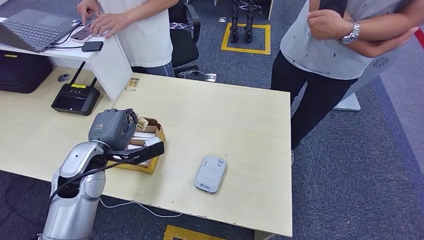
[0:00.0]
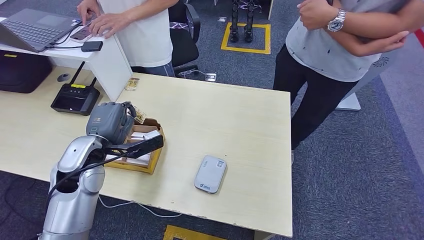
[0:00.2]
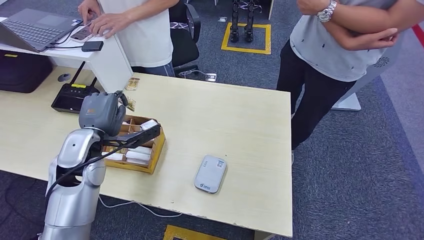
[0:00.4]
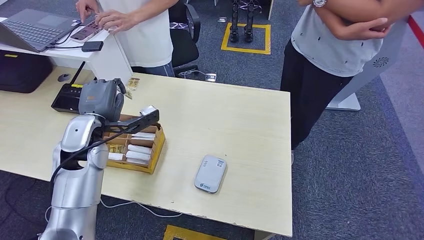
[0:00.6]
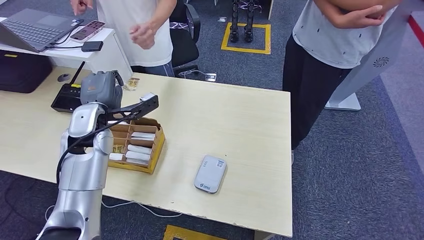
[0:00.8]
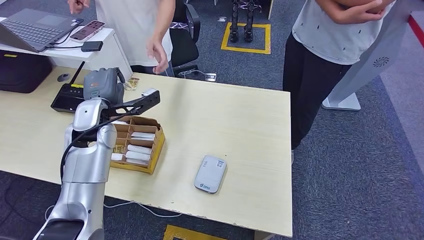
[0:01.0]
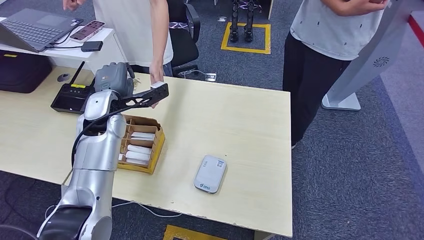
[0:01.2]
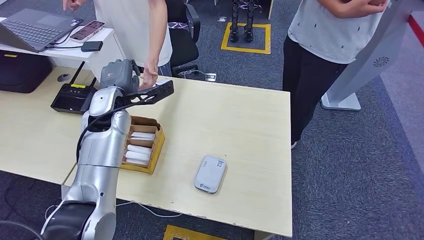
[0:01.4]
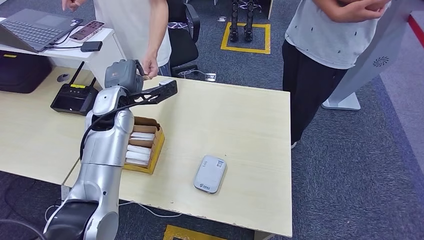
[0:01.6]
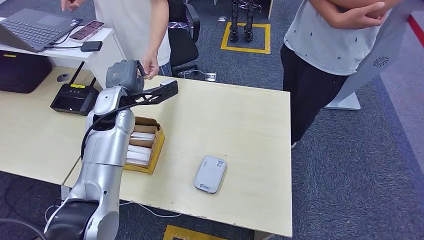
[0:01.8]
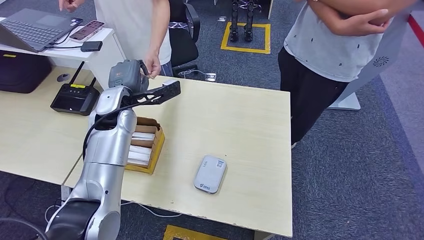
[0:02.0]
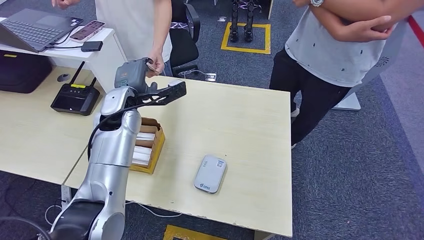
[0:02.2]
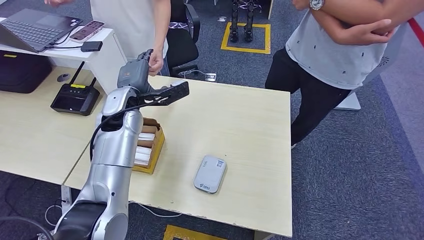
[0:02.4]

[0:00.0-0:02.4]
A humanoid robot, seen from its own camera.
Step, 0.0 to 2.4 s: Hand the room key to the person.
1.2 to 2.4 s: There are only small adjustments of the hands.

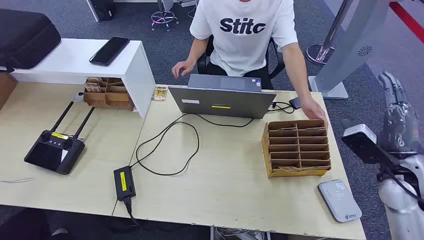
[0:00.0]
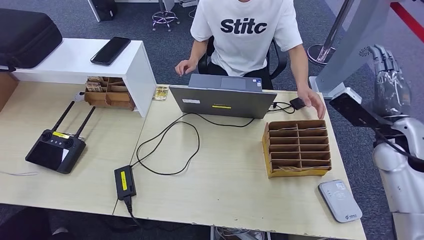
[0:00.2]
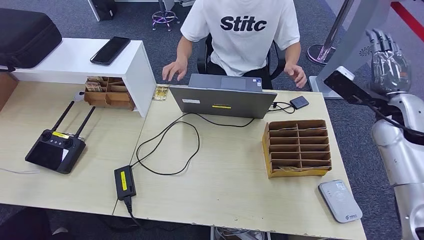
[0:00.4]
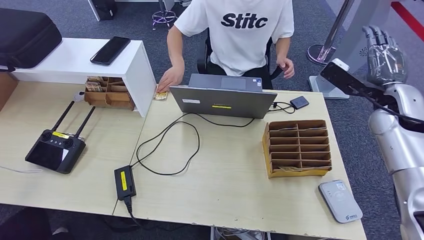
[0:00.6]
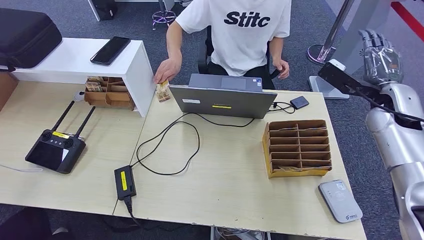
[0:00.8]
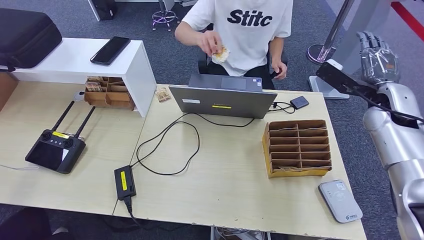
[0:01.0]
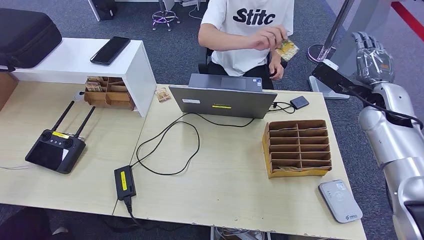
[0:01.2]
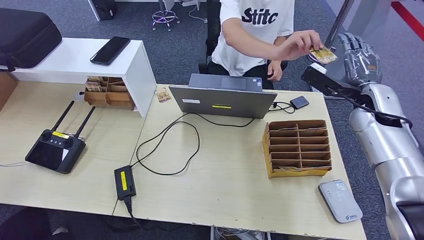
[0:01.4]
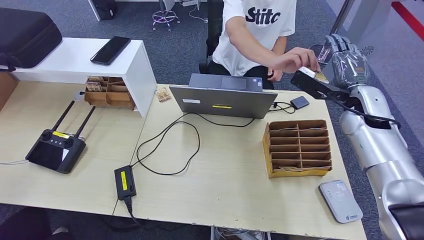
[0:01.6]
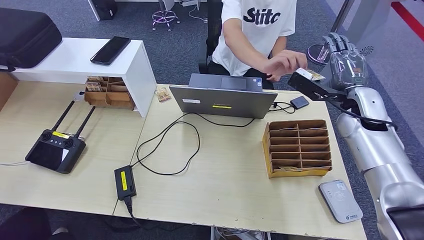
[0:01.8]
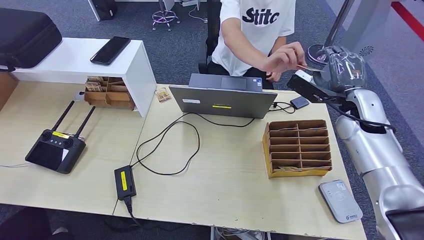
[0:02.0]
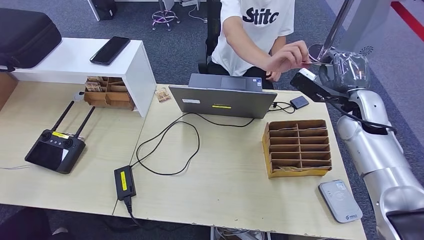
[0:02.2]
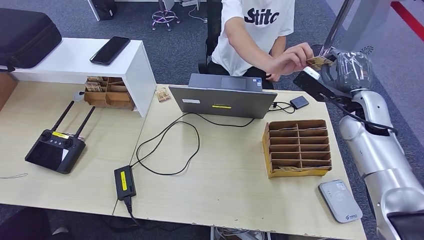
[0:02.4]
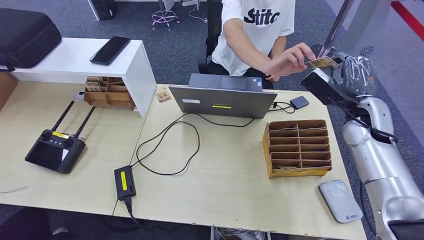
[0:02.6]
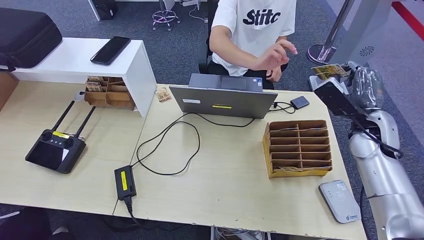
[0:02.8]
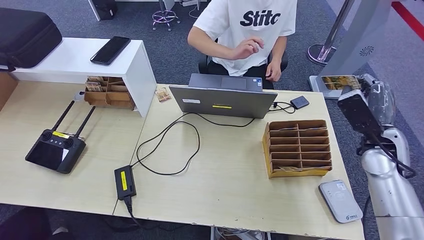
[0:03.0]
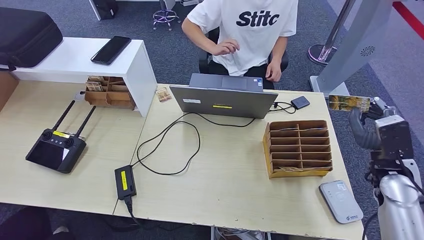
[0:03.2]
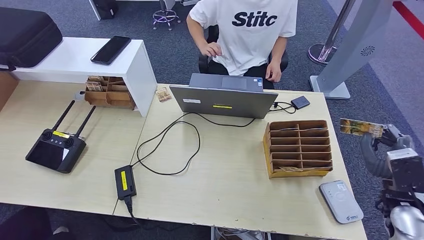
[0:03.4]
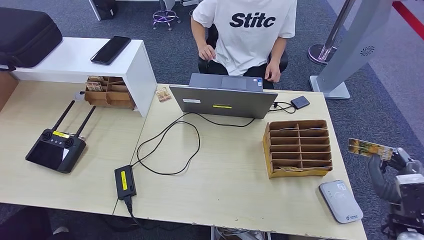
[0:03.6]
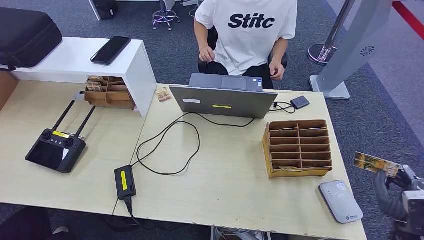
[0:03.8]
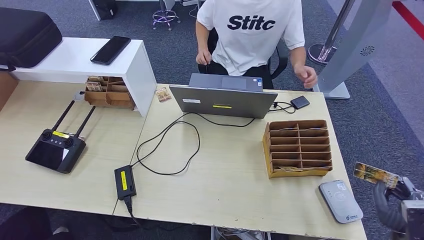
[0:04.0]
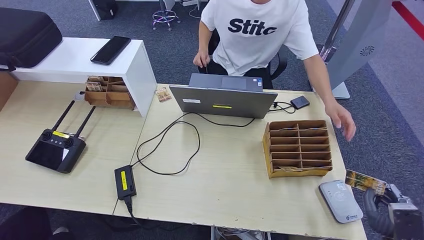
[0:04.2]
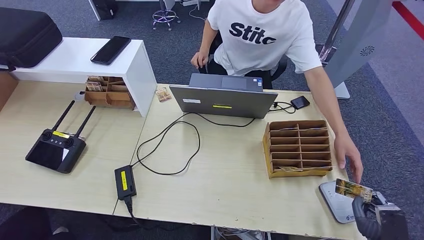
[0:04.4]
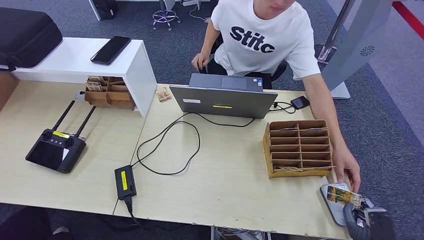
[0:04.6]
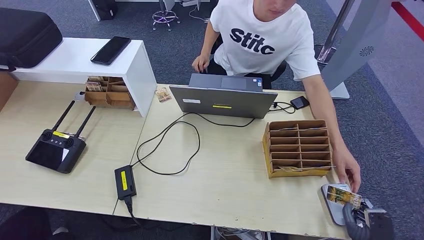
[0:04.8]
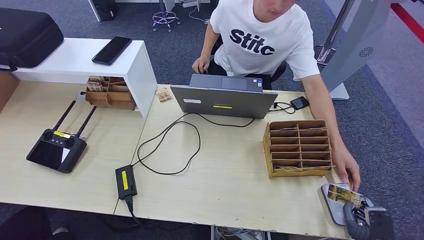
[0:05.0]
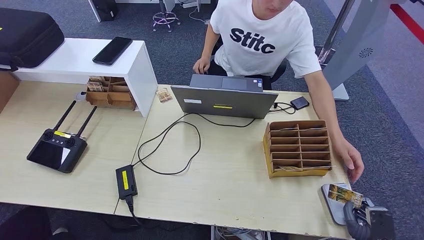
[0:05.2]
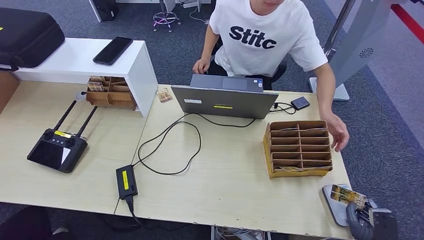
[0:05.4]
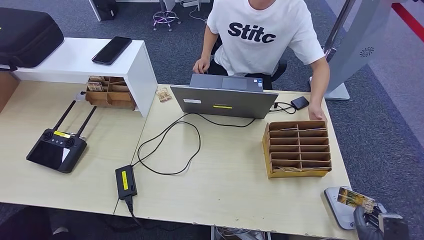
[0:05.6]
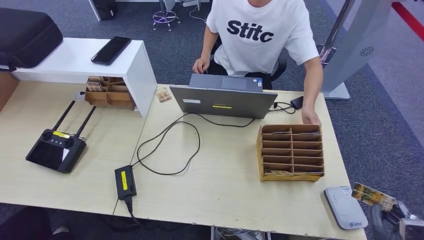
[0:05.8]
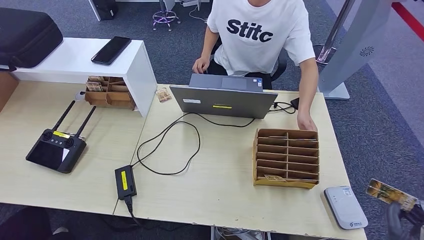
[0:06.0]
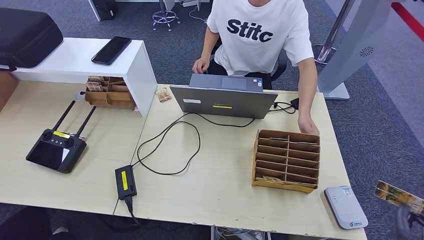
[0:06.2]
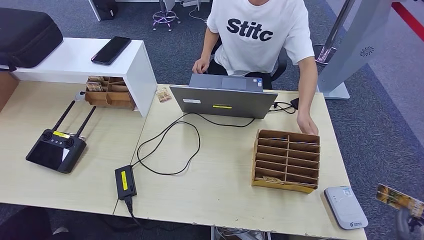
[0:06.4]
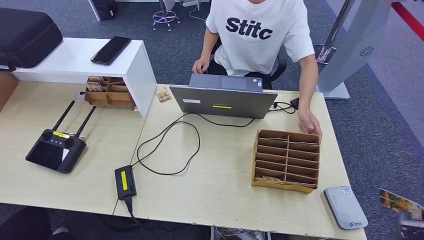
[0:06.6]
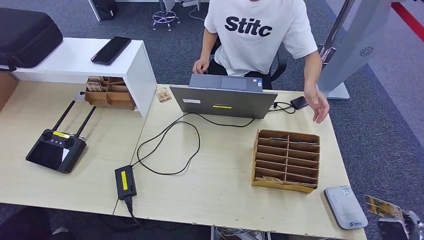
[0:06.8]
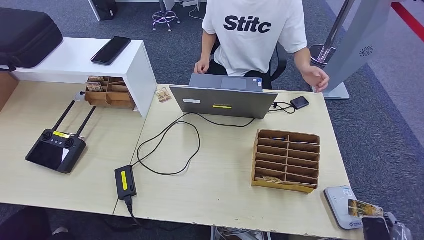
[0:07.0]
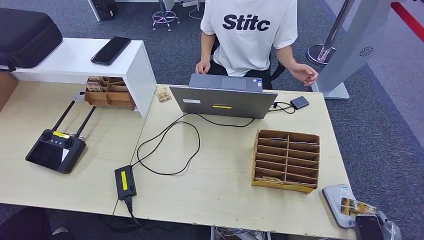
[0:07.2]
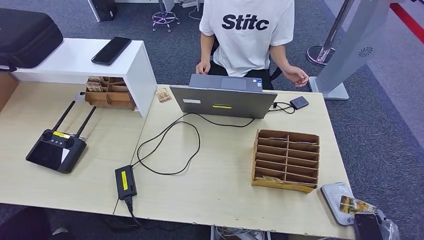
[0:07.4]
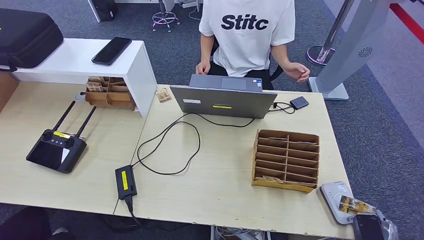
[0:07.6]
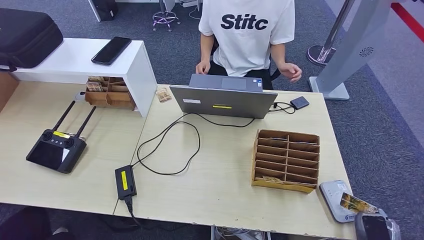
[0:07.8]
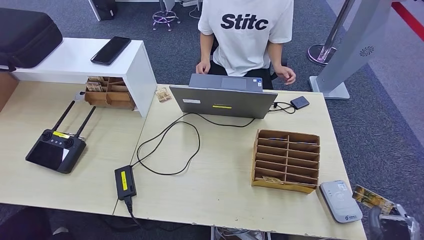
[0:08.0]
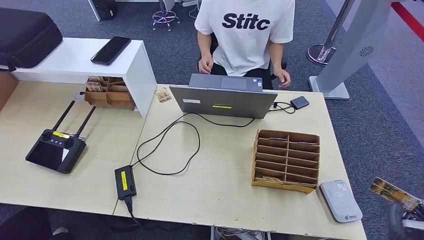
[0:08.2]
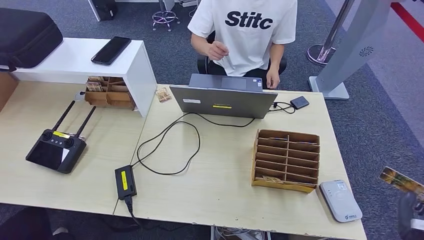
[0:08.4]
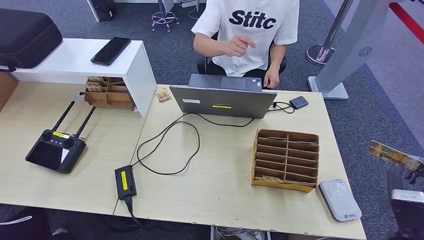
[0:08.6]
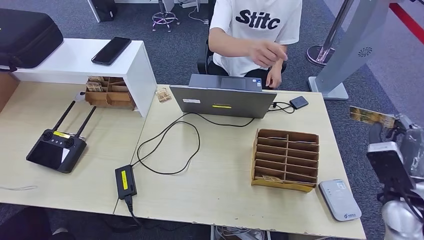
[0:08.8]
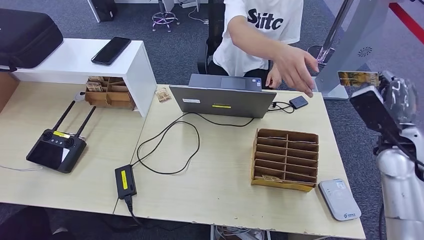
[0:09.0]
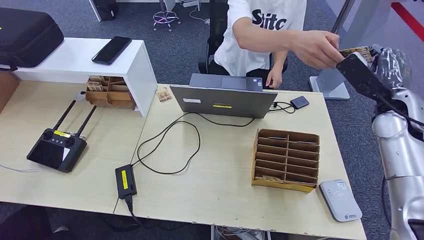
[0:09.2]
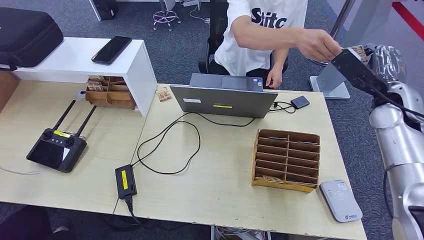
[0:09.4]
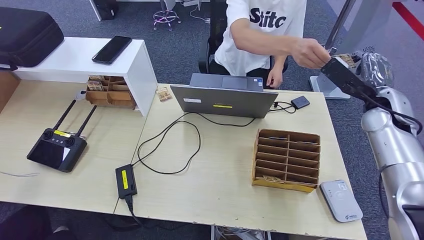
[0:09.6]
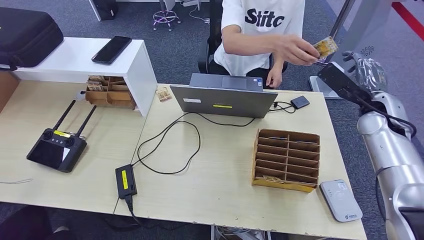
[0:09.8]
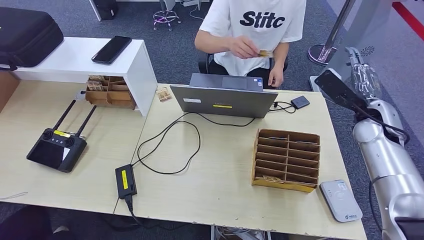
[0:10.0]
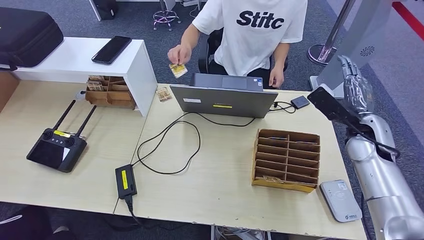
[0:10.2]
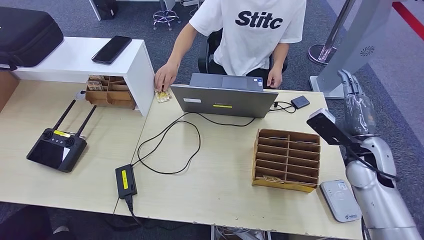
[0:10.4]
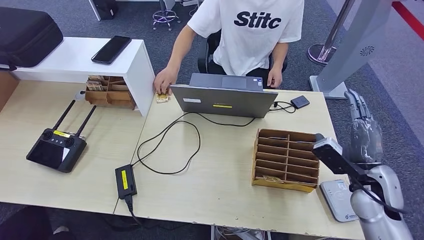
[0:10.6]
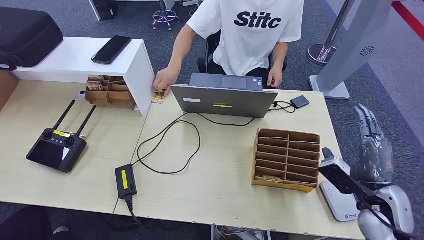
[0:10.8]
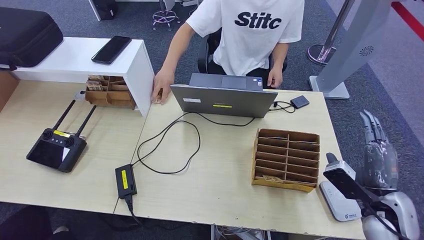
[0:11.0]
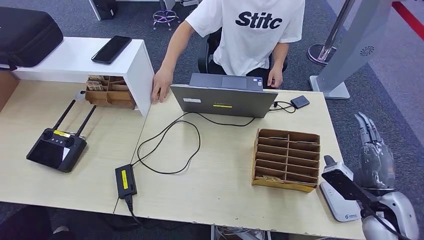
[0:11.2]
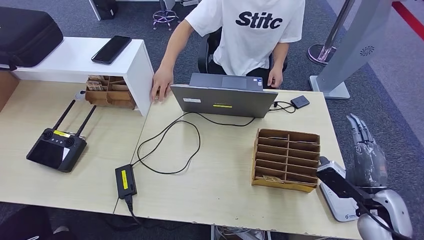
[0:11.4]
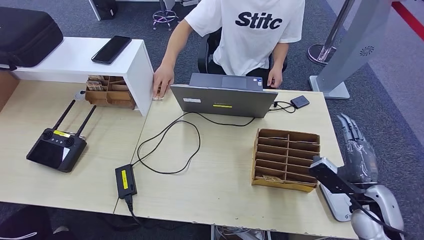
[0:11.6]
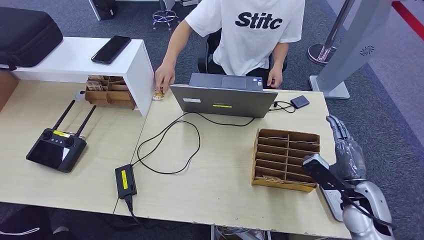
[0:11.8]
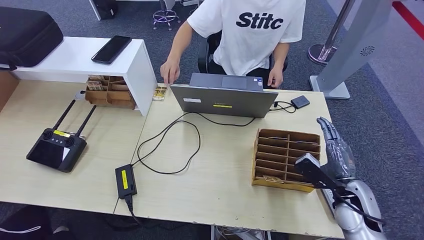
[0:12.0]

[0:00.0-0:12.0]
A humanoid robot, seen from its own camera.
Step, 0.0 to 3.2 s: Take the ID card from the person's hand.
Step, 3.4 to 8.4 s: Place the ID card on the card reader.
Step, 8.8 to 10.6 s: Hand the ID card to the person.
1.6 to 3.0 s: The right hand goes approximately 10 cm backward and downward.
3.0 to 4.4 s: The right hand shifts some 30 cm backward and downward.
4.4 to 6.0 s: There are only small adjustments of the hands.
6.0 to 7.6 s: The right hand heads downward, covering roughly 10 cm.
7.6 to 9.0 s: The right hand travels upward and forward by roughly 35 cm.
10.4 to 12.0 s: The right hand moves downward and backward, some 10 cm.

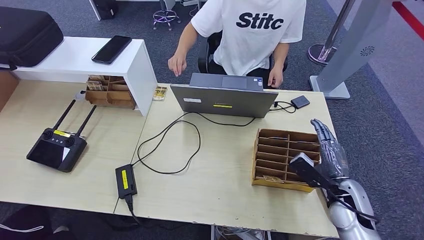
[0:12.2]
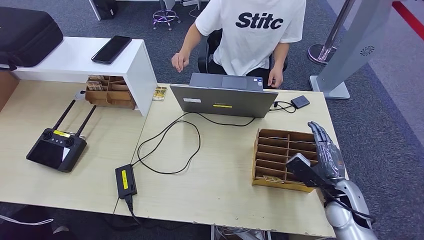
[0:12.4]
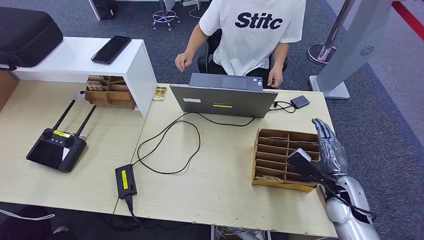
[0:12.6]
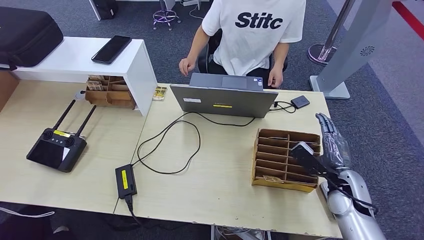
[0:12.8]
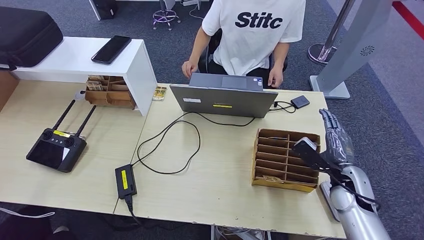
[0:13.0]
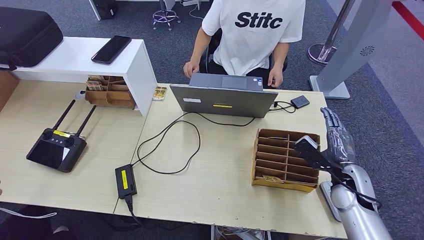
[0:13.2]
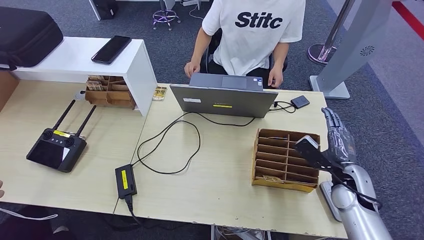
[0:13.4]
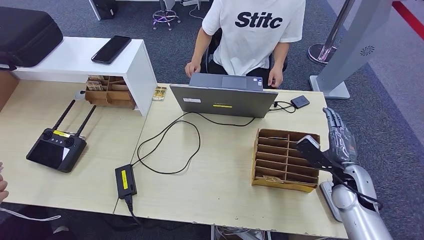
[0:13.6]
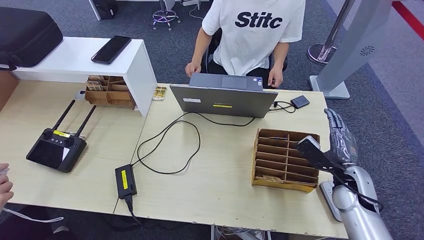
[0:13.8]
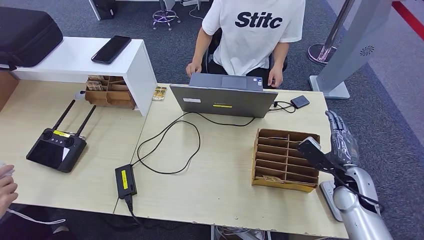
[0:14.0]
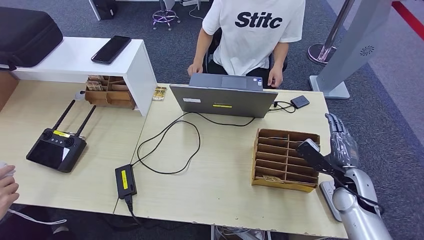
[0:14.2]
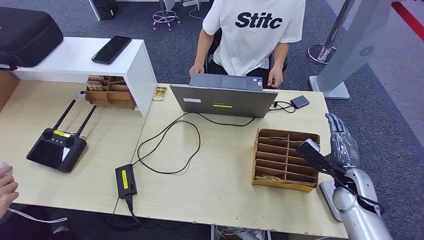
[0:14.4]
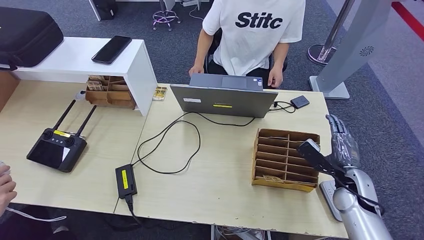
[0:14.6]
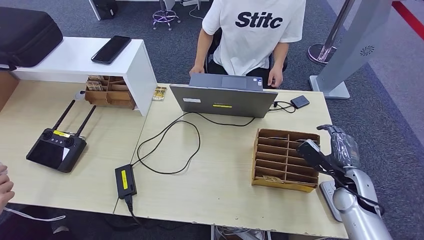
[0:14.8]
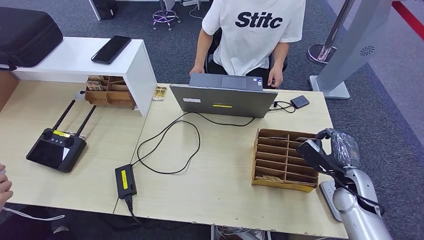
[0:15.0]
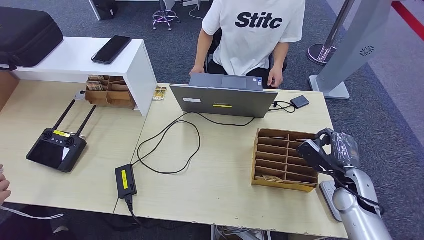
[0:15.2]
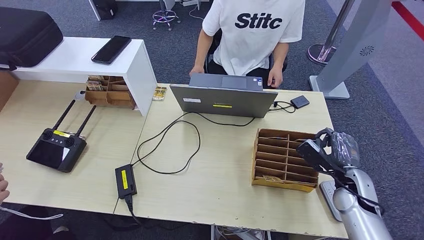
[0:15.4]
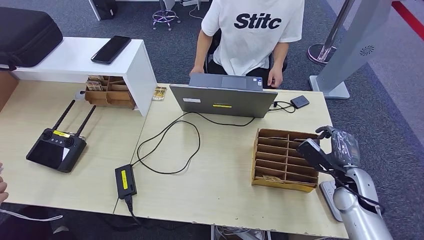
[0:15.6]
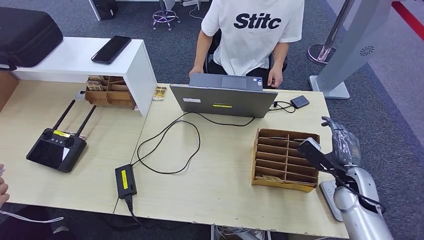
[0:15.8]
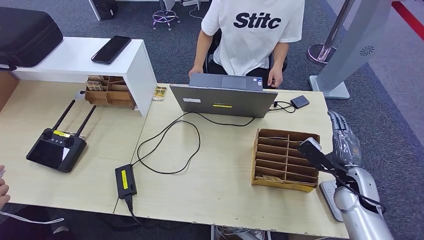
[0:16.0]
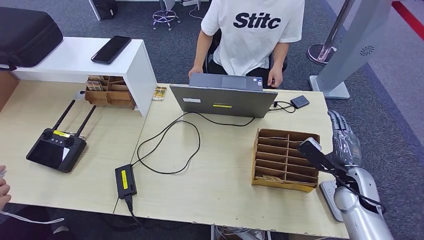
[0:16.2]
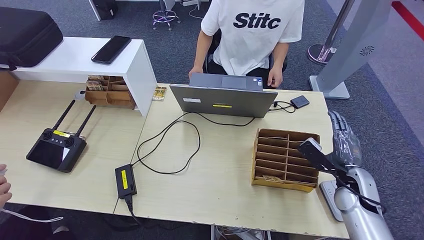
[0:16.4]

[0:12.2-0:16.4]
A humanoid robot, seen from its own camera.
12.2 to 15.0 s: The hands stay close to where they were, moving slightly.
15.0 to 16.4 s: Both hands stay put.
